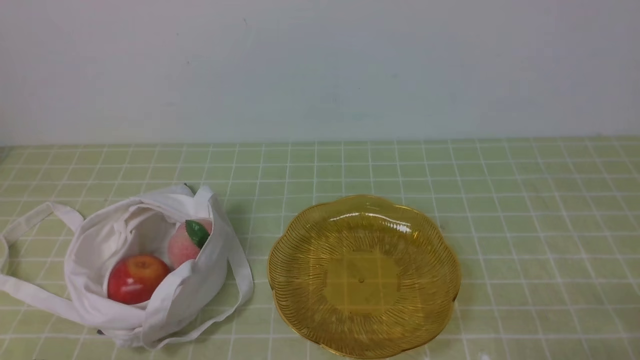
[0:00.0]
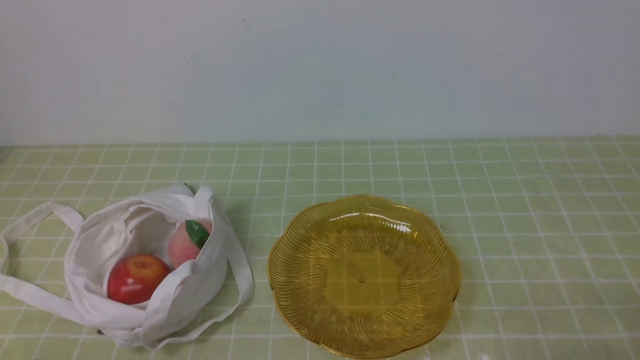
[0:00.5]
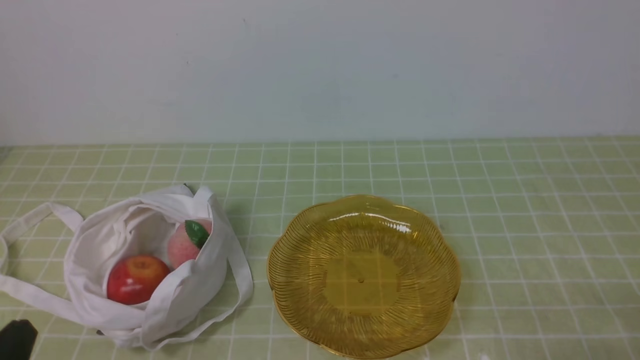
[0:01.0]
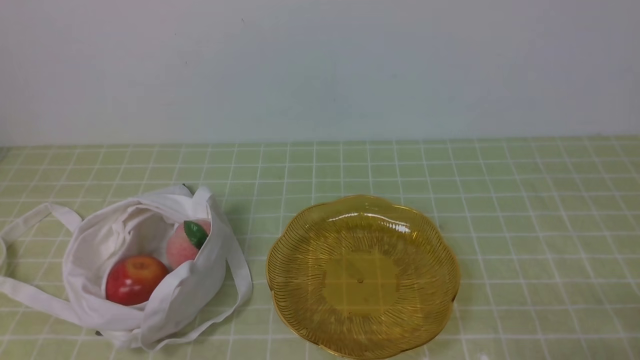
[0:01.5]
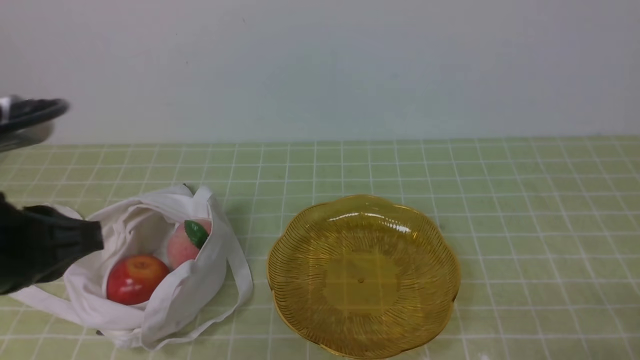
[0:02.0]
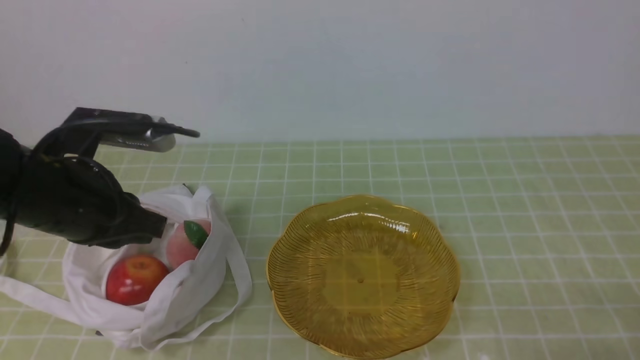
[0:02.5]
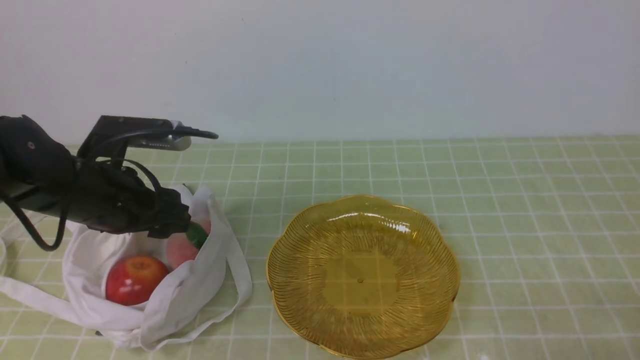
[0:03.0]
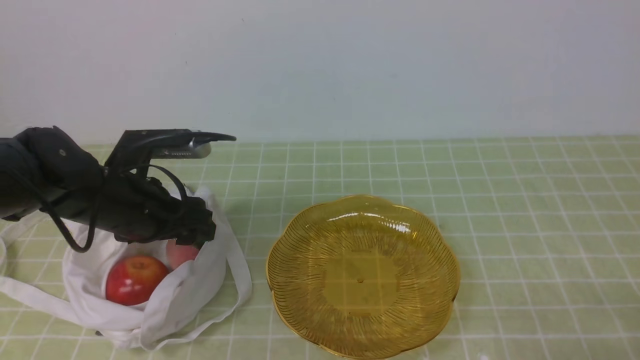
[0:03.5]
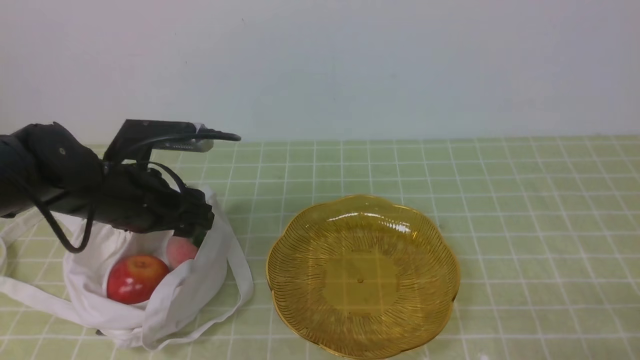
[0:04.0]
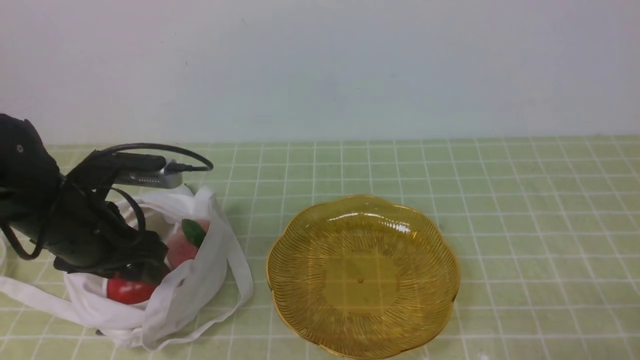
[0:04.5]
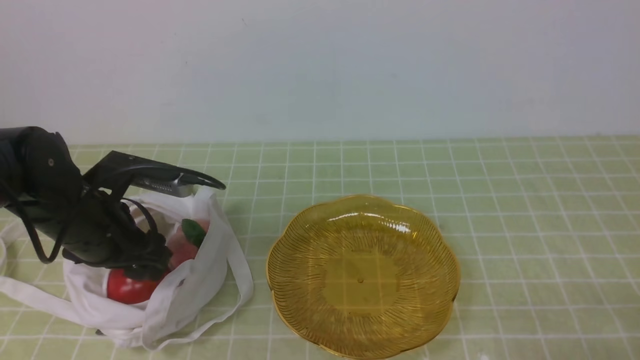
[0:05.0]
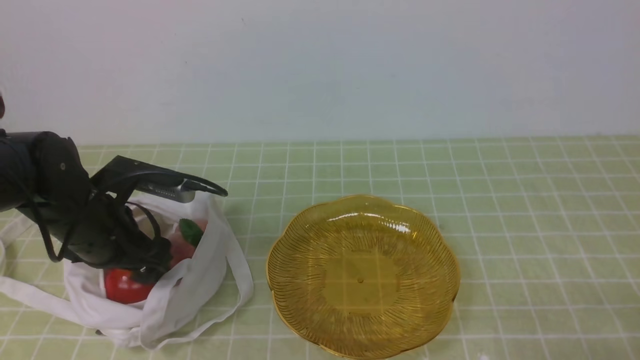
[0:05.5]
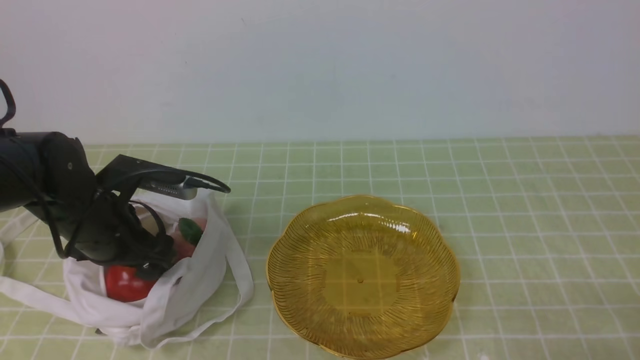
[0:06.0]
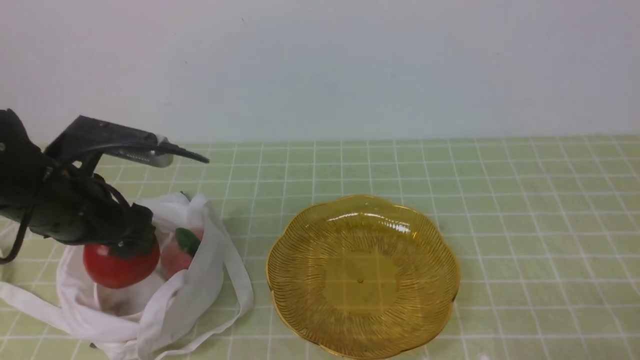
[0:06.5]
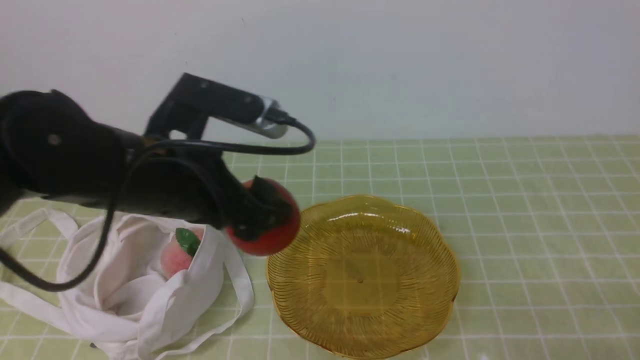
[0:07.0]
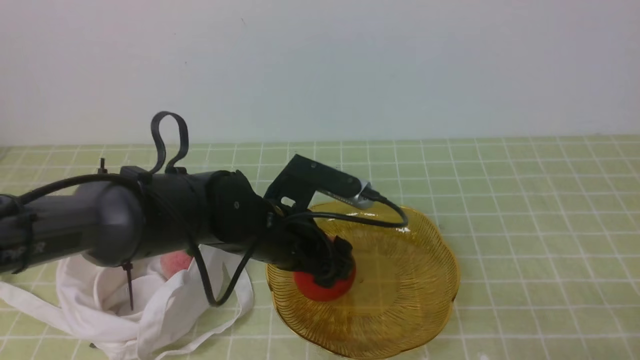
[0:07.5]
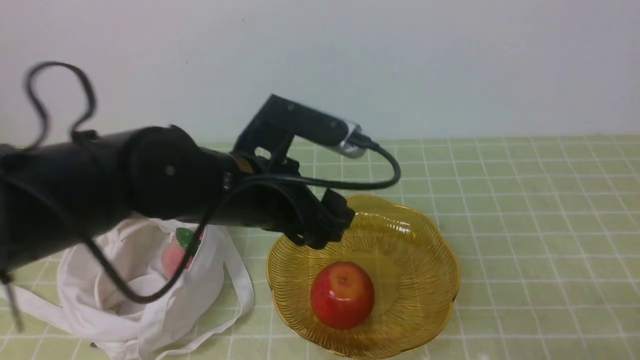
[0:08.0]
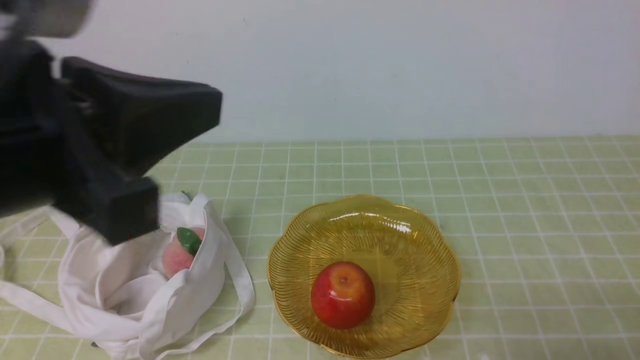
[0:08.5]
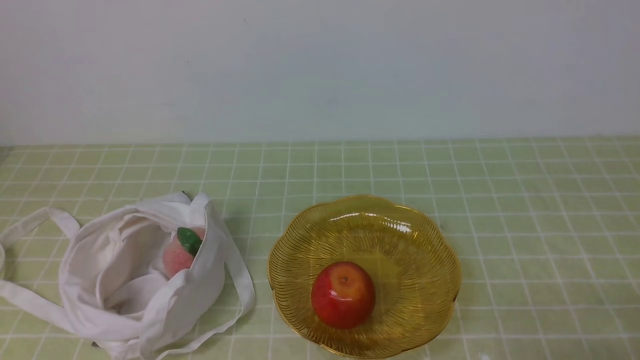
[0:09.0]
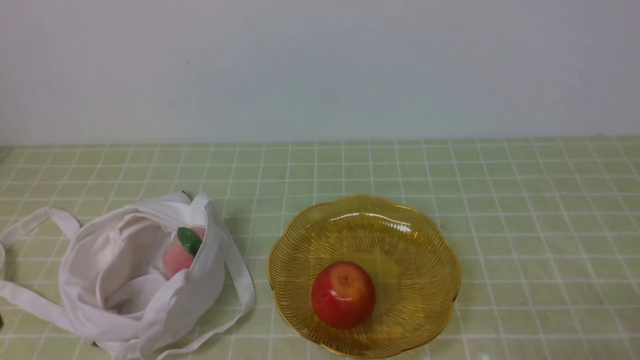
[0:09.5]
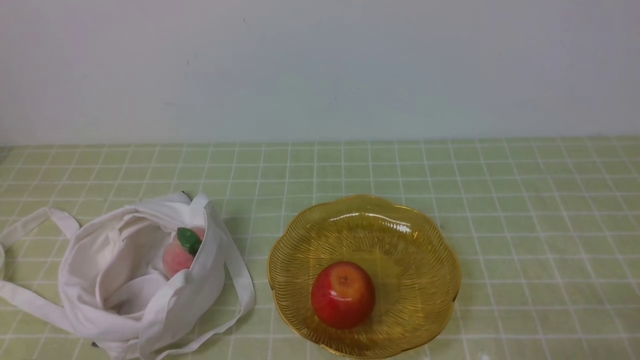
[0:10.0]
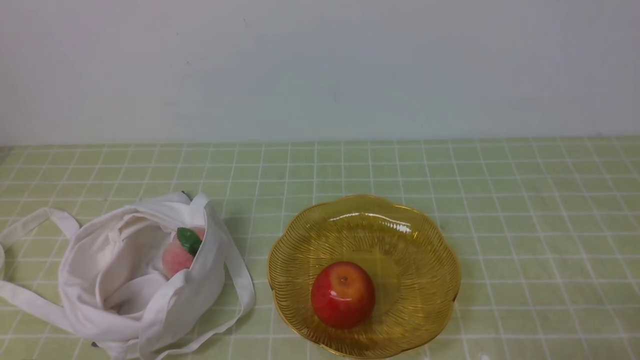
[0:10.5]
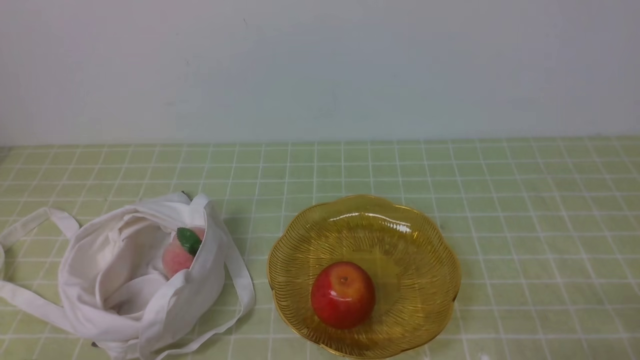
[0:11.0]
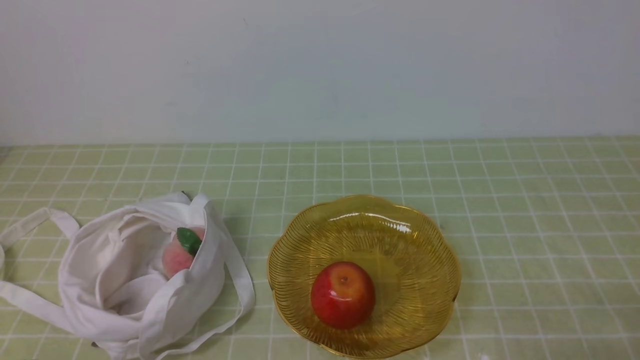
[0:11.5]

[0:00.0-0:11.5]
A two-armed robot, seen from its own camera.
Step, 0:00.0 to 0:06.0: use the left arm to grab an apple from the bag.
Step, 0:06.5 to 0:07.5: use the left arm to put the apple into the empty plate on the right.
0:00.0 to 0:02.0: The left gripper heads upward and forward, covering about 20 cm.
0:02.0 to 0:04.0: The left gripper moves forward and downward, some 20 cm, and opens.
0:06.0 to 0:07.5: The left gripper moves to the right, about 20 cm.
0:07.5 to 0:09.5: The left gripper goes some 30 cm backward and to the left, and closes.

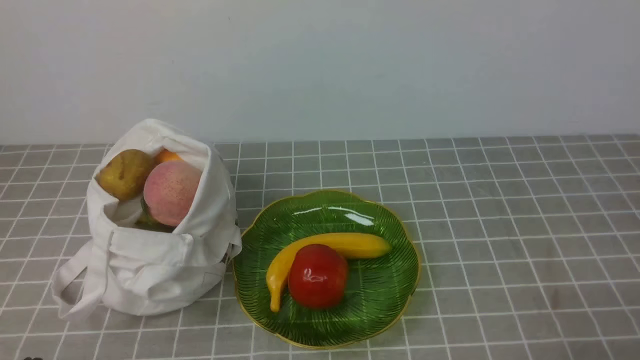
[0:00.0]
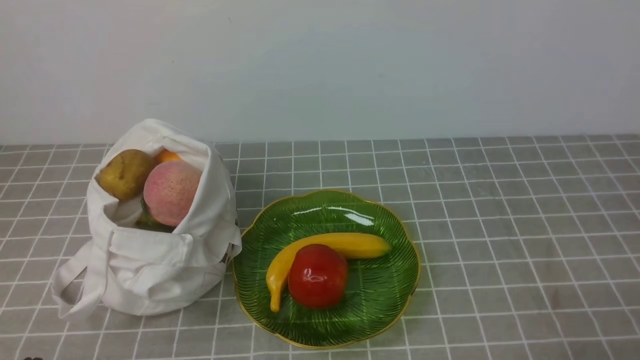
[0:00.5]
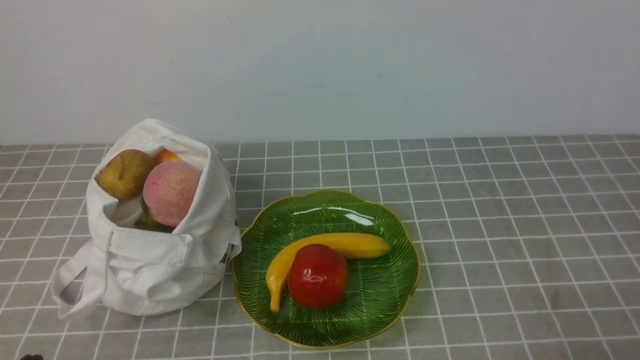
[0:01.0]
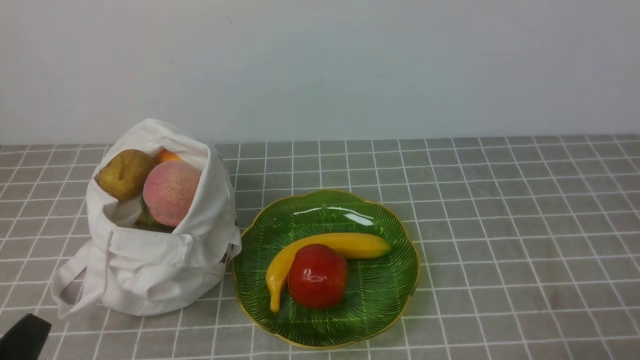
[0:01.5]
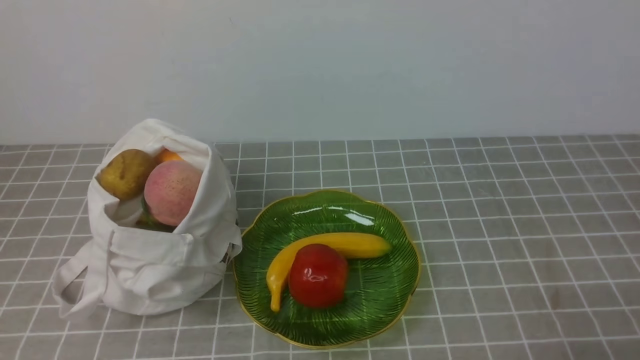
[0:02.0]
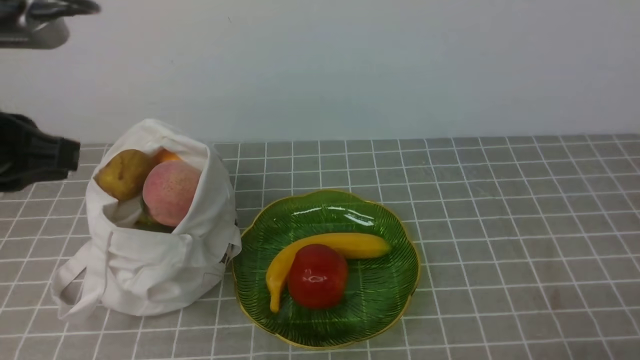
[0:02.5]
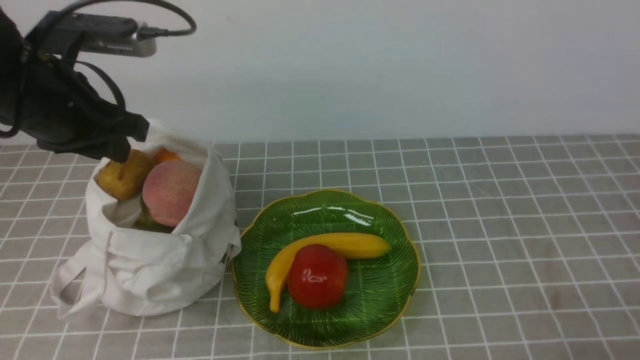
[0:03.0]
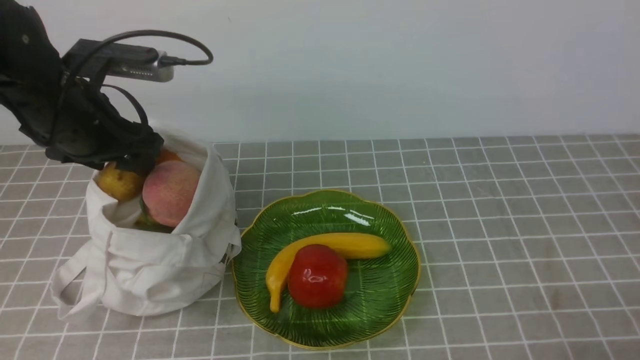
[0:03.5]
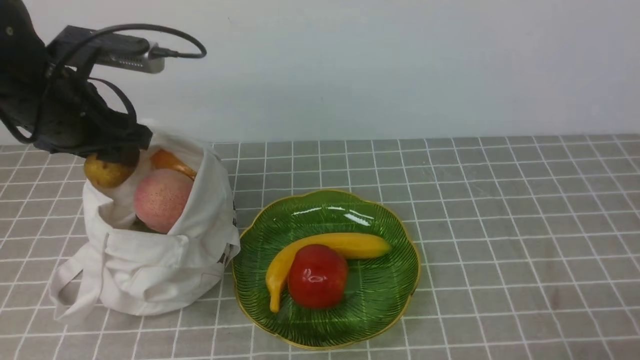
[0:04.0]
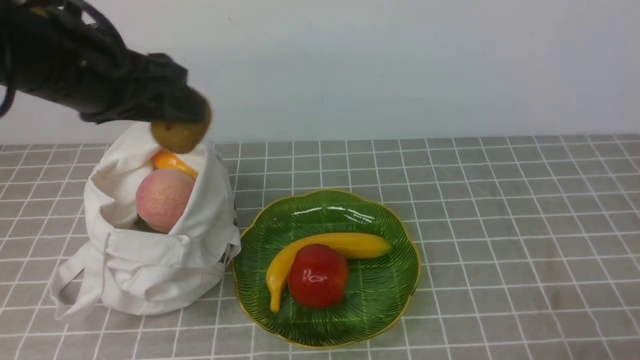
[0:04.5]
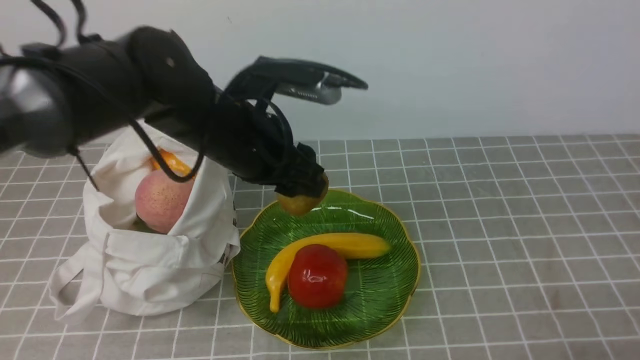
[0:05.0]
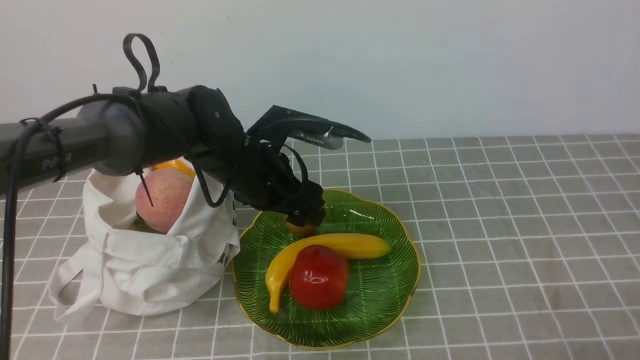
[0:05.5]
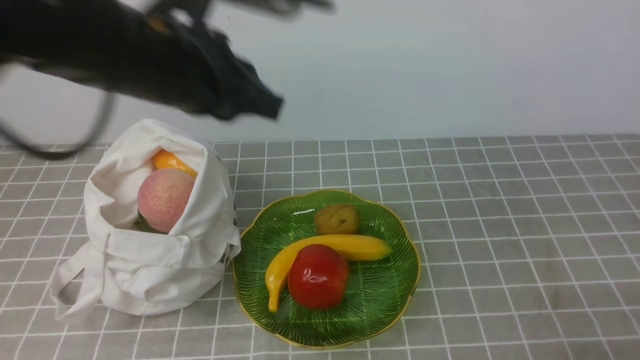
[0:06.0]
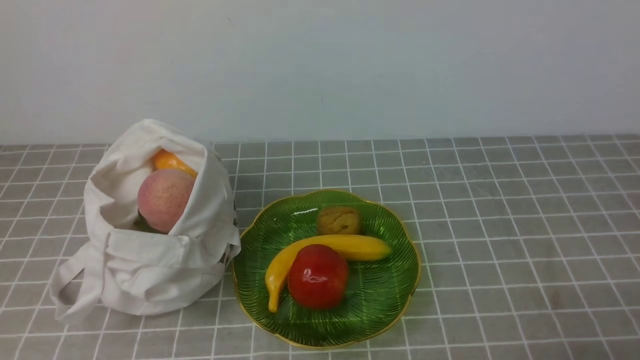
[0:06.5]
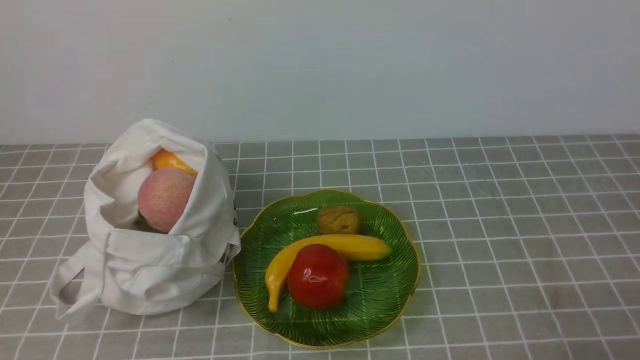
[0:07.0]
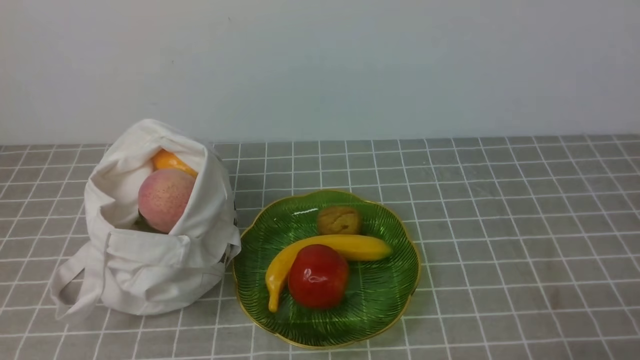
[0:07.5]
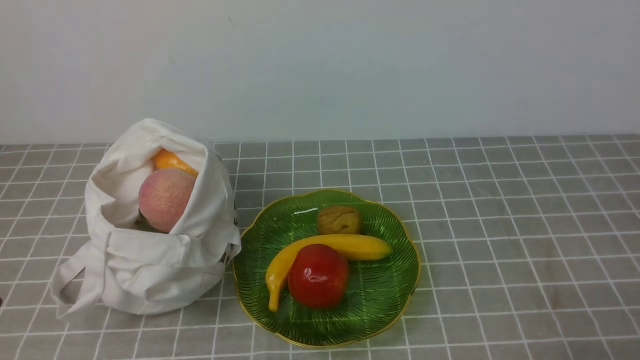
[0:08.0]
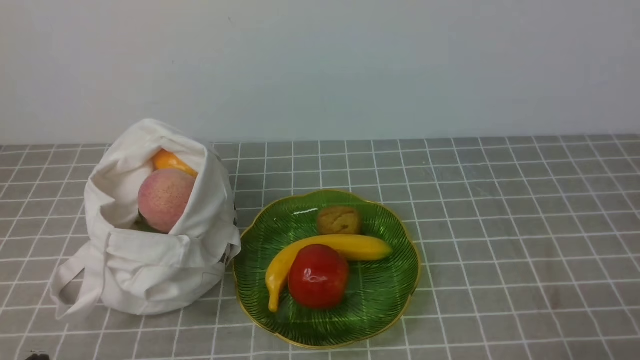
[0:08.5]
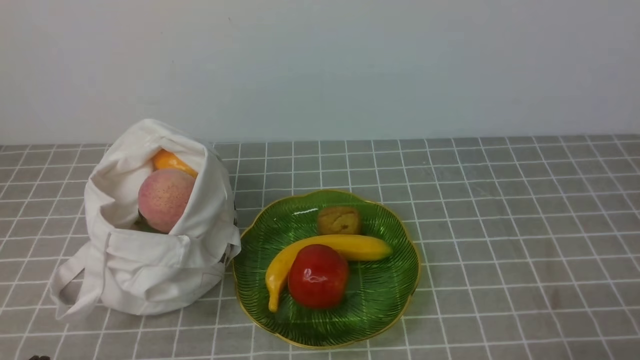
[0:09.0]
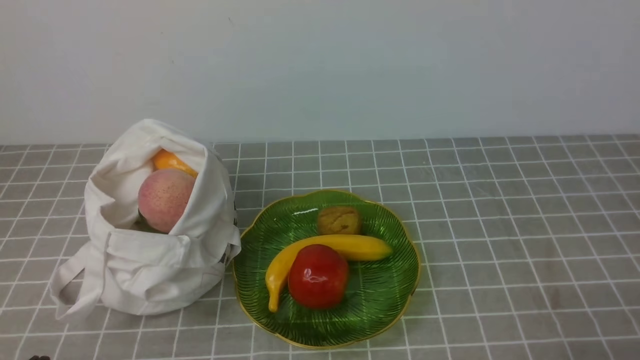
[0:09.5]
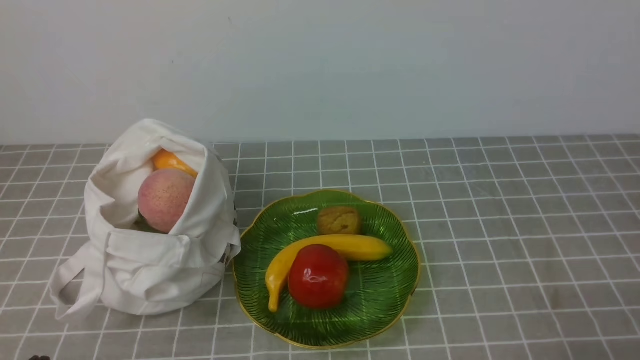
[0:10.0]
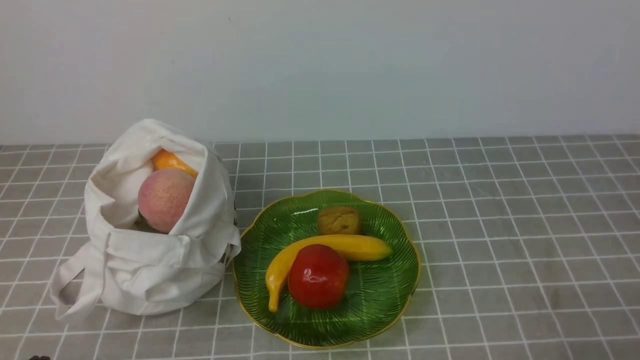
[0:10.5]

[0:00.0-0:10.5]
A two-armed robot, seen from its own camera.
Step, 0:00.0 to 0:03.5: use the left arm to grab a kiwi from the bag.
Step, 0:04.0 to 0:05.5: use the left arm to put the kiwi into the empty plate on the right.
0:02.0 to 0:04.0: The left gripper moves forward, about 30 cm, and opens.
0:04.0 to 0:06.5: The left gripper swings forward and backward, about 30 cm each way, with 2 reversals, and closes its fingers.
0:08.5 to 0:10.5: The two grippers keep their place.
